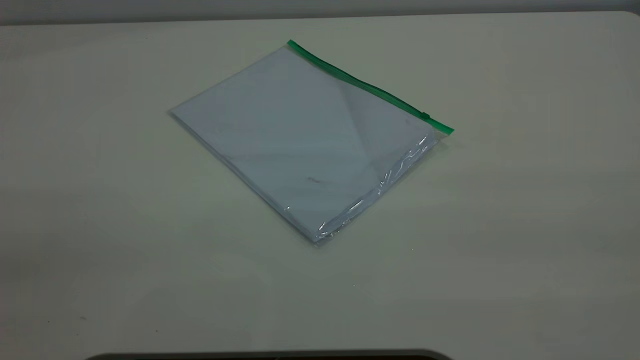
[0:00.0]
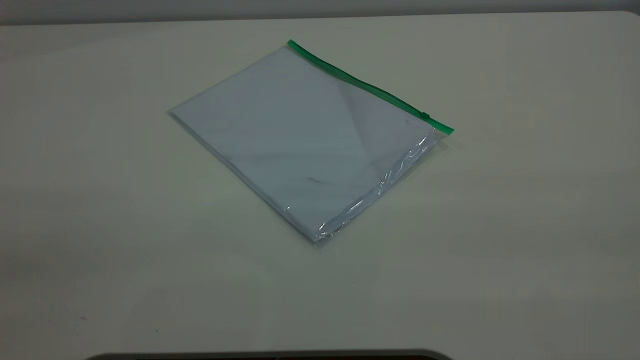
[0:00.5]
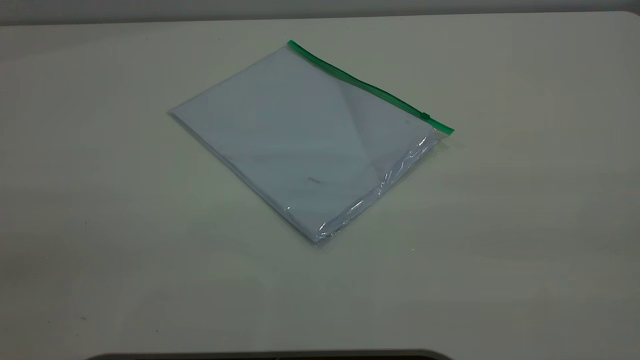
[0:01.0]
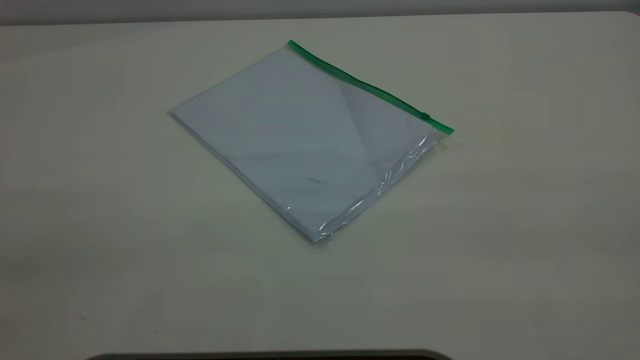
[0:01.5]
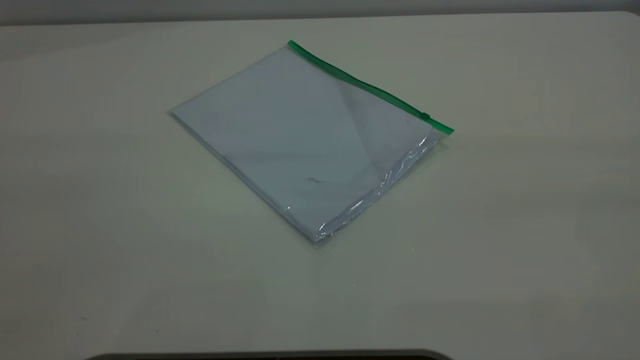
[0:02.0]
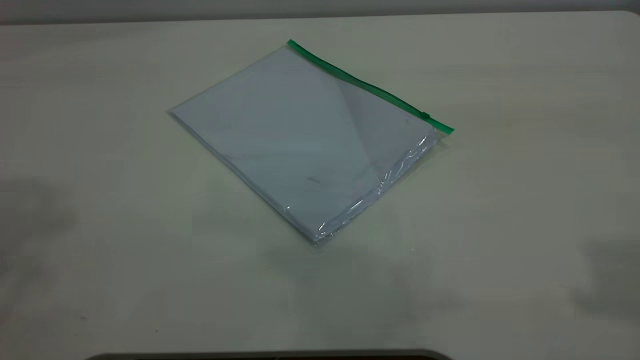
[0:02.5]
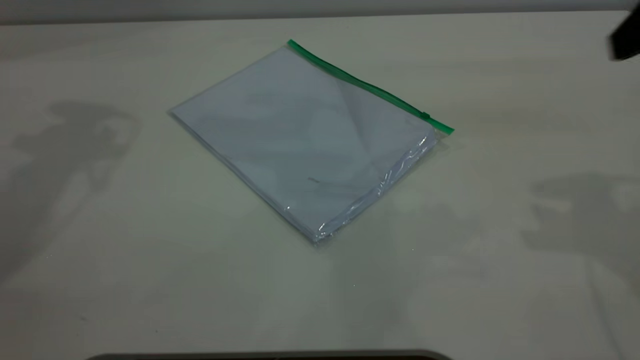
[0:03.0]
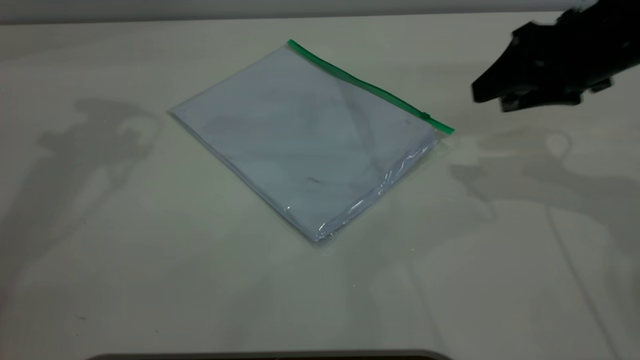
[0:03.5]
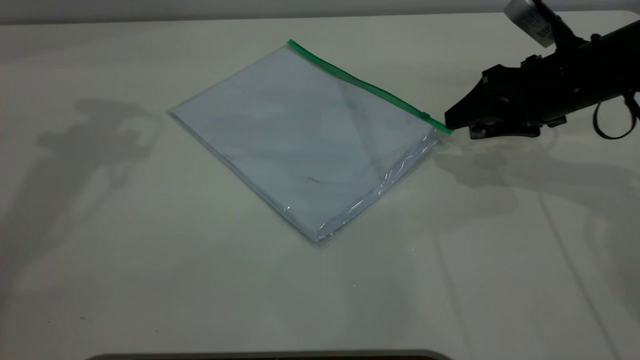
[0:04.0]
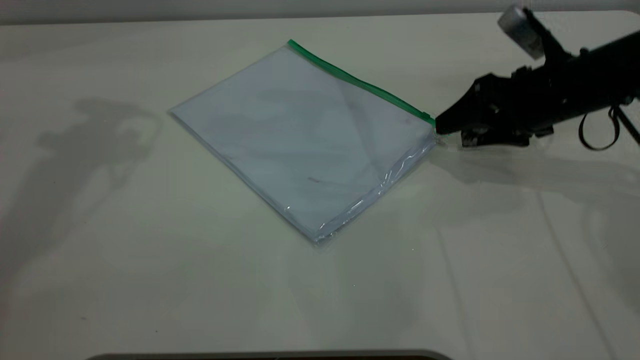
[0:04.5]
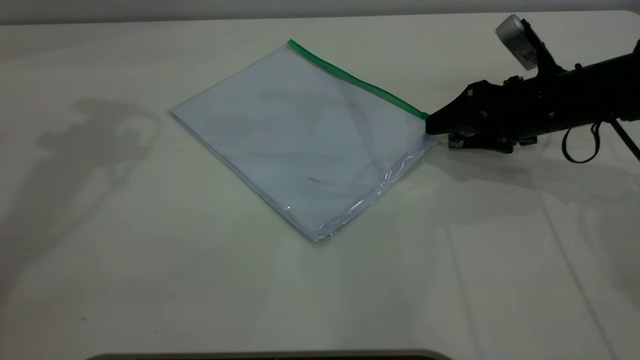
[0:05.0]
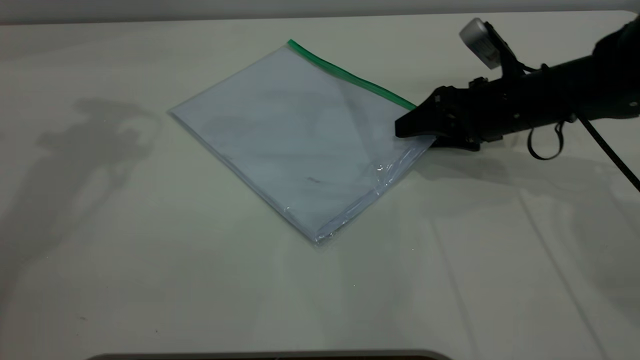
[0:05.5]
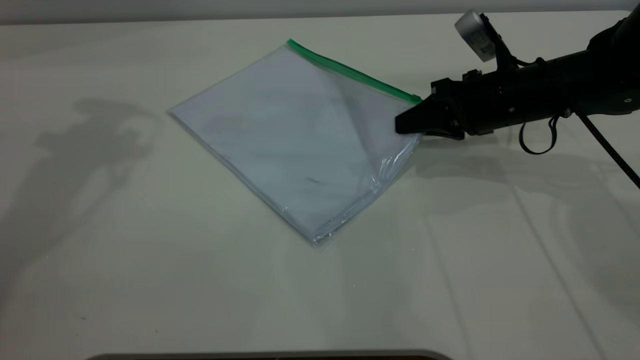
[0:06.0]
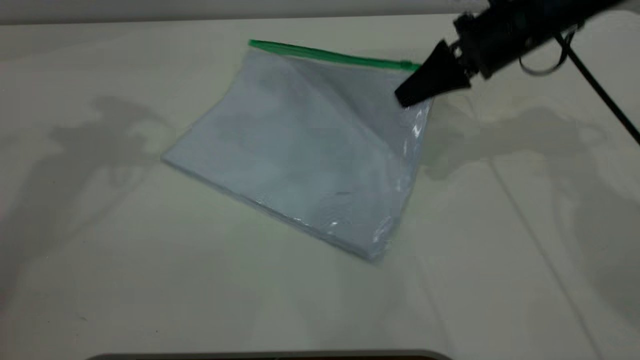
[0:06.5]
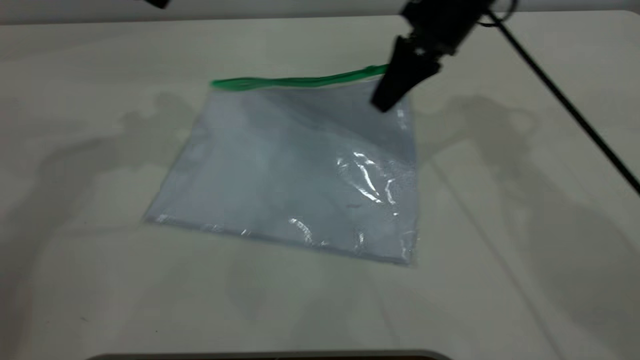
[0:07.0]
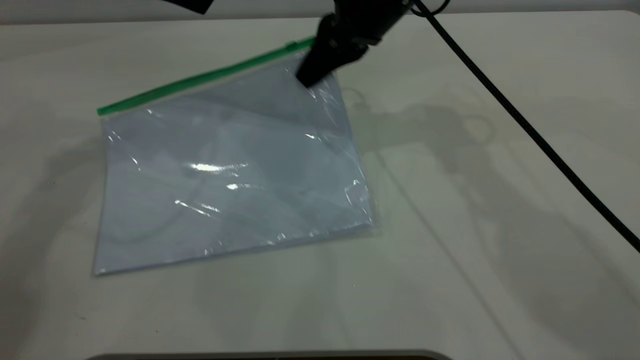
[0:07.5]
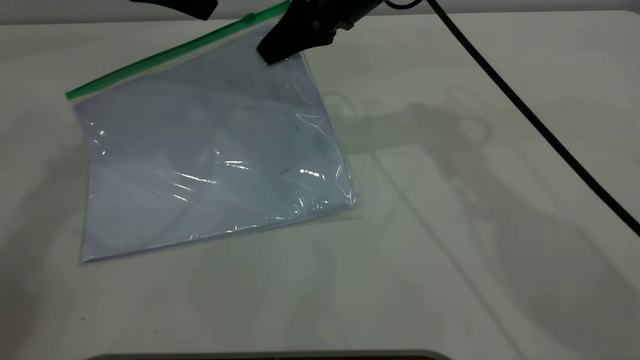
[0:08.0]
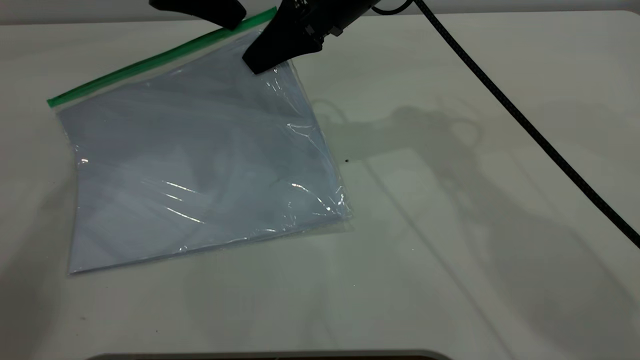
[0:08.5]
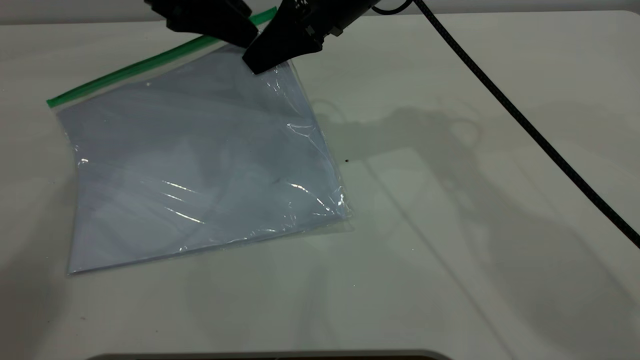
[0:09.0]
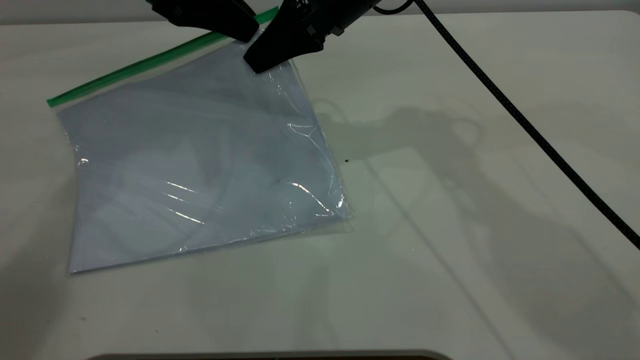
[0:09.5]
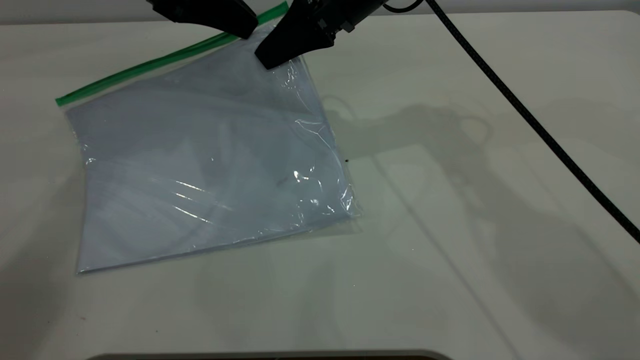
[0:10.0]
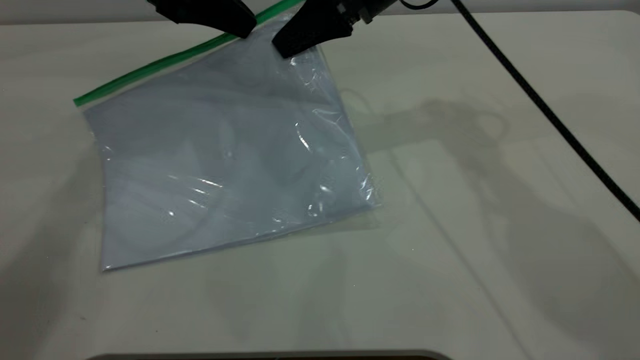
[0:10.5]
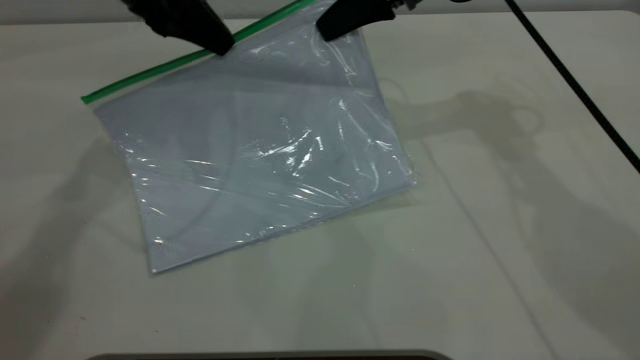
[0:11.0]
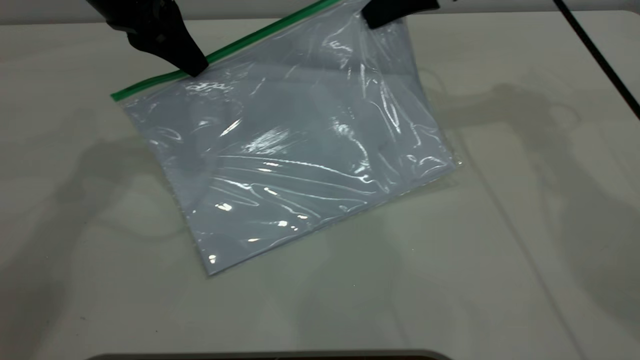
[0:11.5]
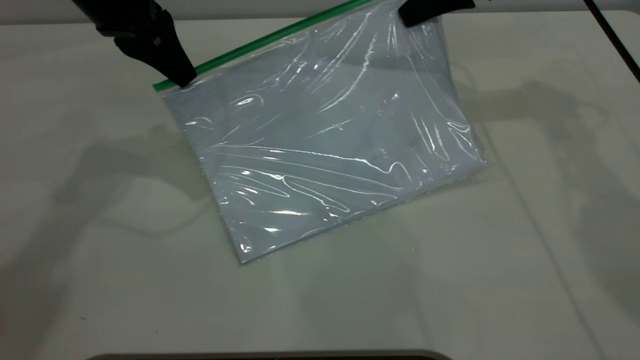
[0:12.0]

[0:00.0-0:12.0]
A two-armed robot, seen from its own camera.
Step, 0:00.0 to 0:06.0: Pick up the transparent plastic bag with the right gripper.
0:02.0 to 0:04.0: The right gripper moves forward and downward, some 50 cm.
0:04.0 to 0:06.0: The right gripper moves roughly 5 cm, and closes.
0:06.0 to 0:08.0: The left gripper goes roughly 10 cm downward and to the right. Meanwhile the right gripper heads to the left and upward, covering roughly 20 cm.
0:08.0 to 0:10.0: The left gripper closes up.
0:10.0 to 0:12.0: The right gripper is displaced to the right by roughly 15 cm.

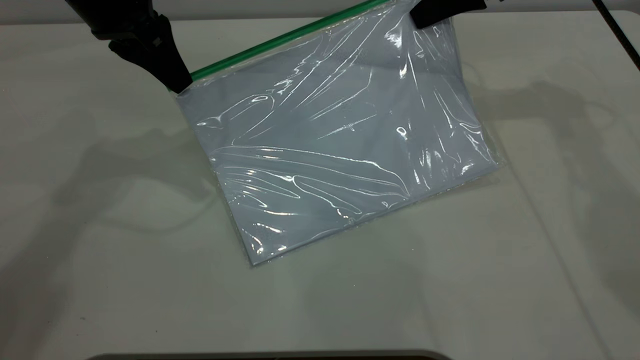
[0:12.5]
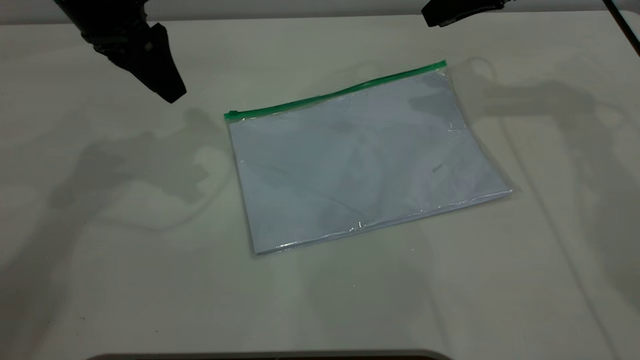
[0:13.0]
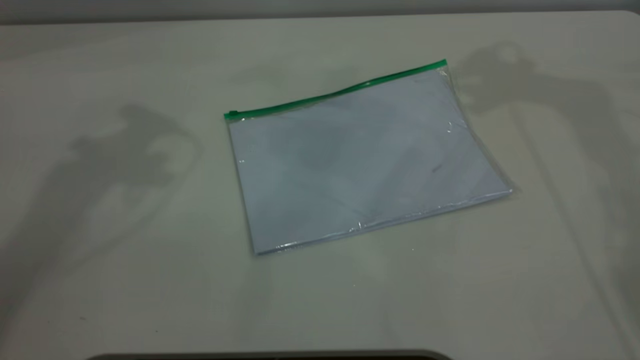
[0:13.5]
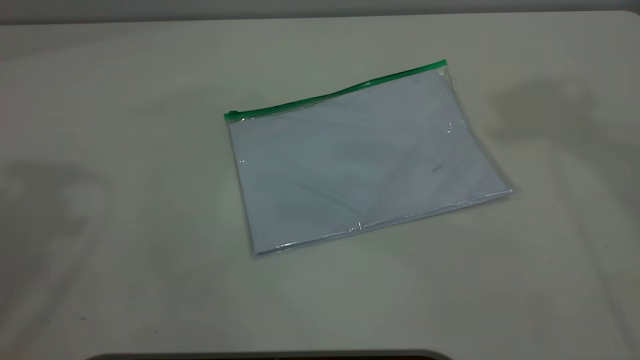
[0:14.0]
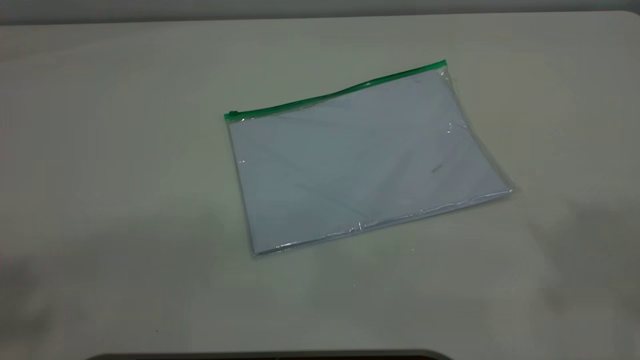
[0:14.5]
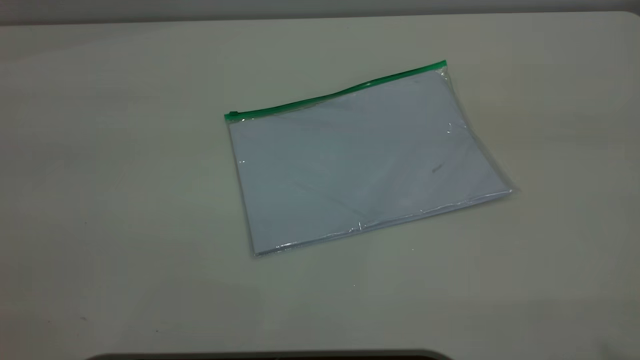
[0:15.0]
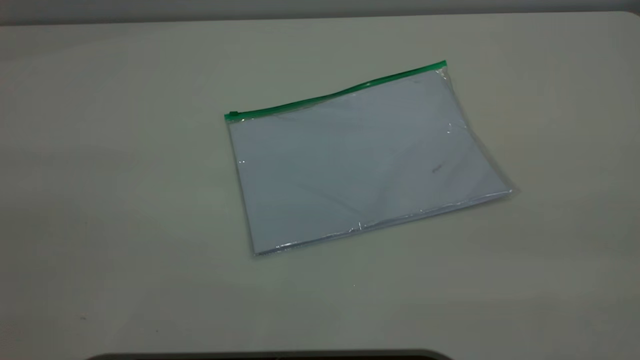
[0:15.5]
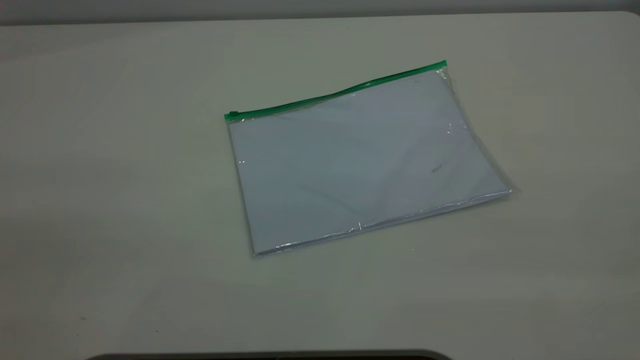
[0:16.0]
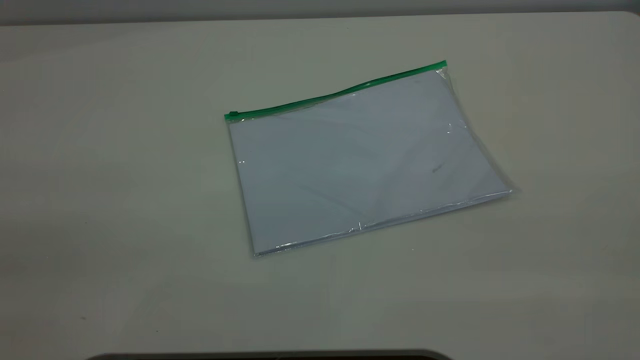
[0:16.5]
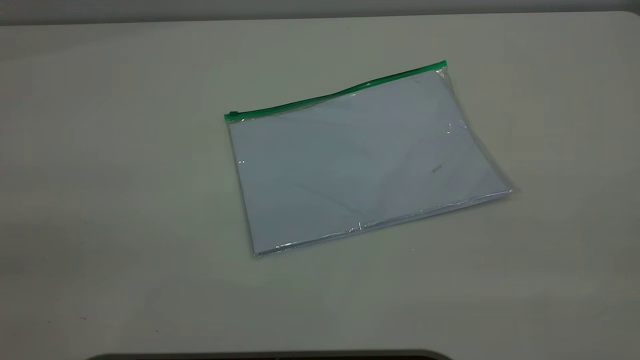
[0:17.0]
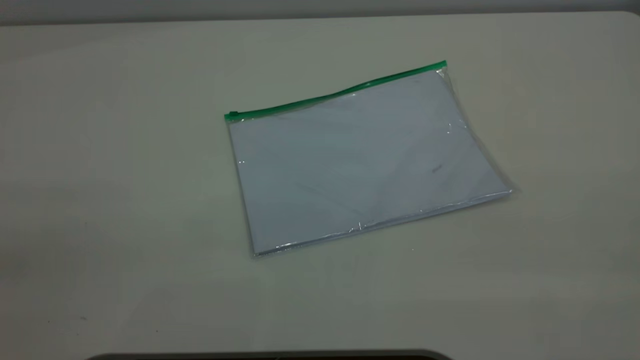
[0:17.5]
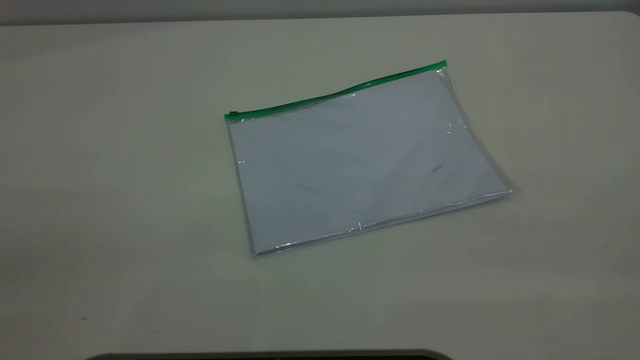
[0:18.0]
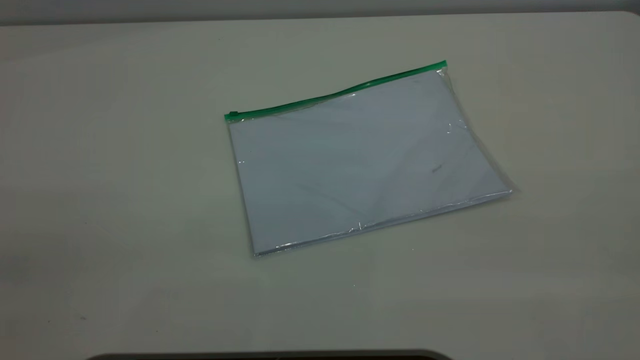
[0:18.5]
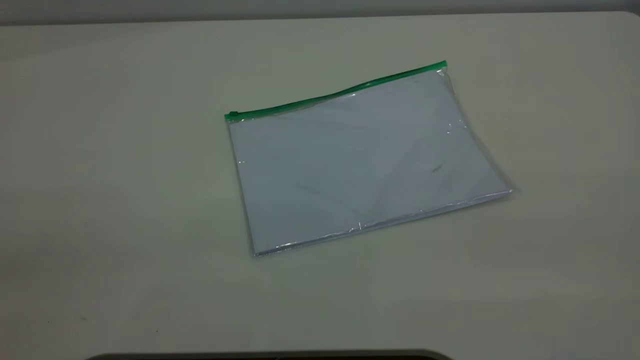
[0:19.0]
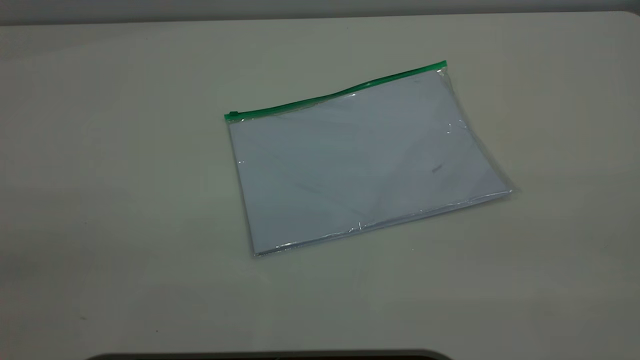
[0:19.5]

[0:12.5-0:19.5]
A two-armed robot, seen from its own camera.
0:12.5 to 0:14.5: Both grippers move upward and backward, approximately 40 cm. The left gripper opens its fingers; the right gripper opens.
